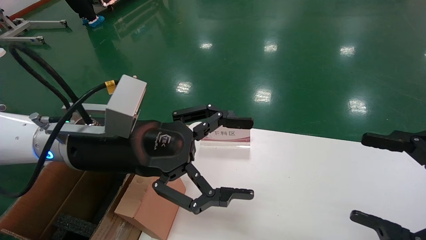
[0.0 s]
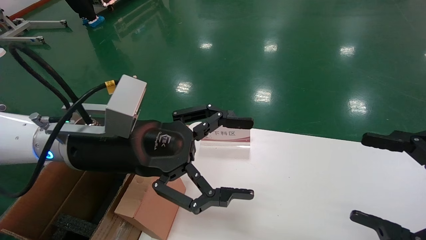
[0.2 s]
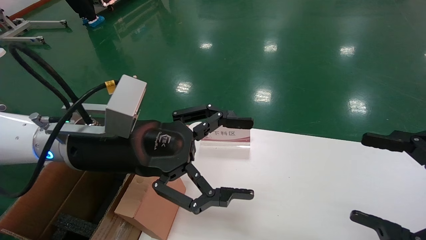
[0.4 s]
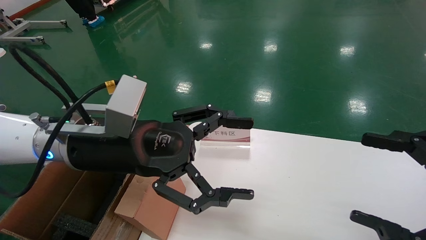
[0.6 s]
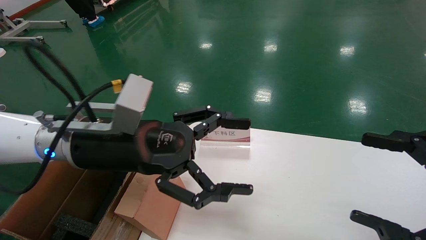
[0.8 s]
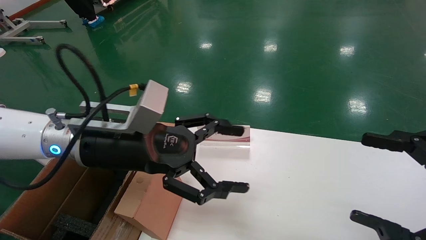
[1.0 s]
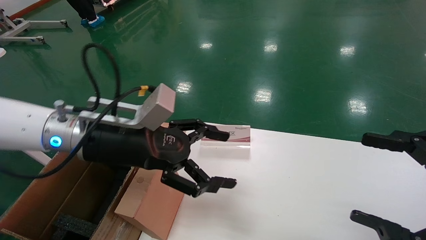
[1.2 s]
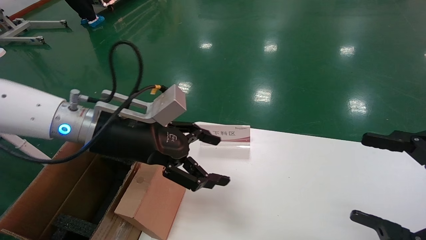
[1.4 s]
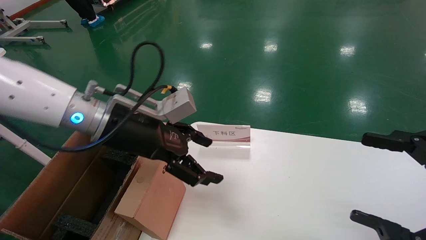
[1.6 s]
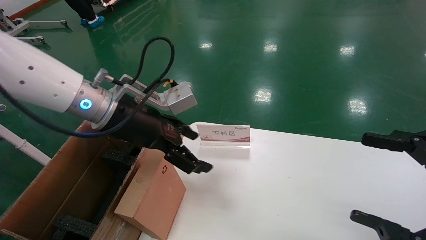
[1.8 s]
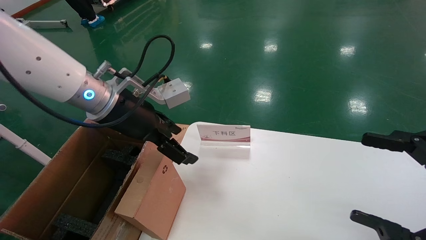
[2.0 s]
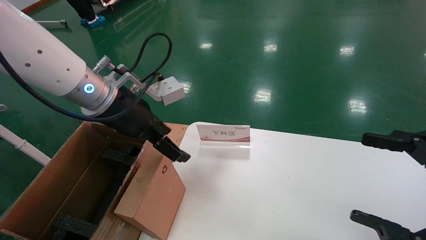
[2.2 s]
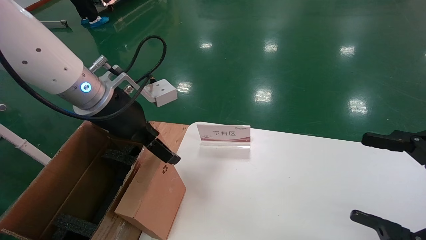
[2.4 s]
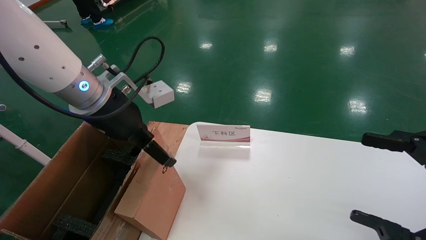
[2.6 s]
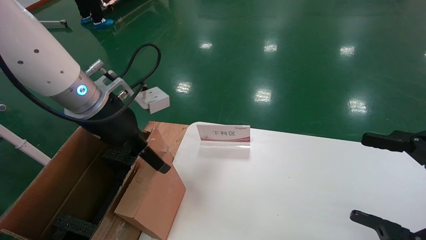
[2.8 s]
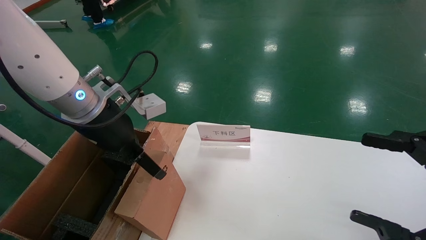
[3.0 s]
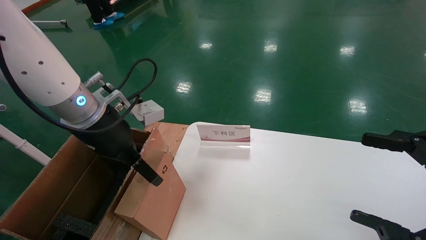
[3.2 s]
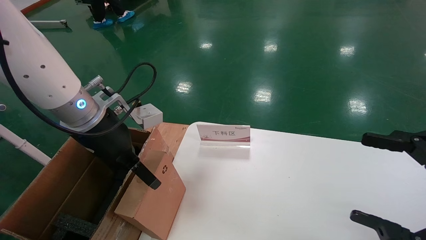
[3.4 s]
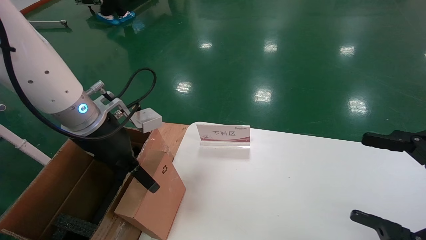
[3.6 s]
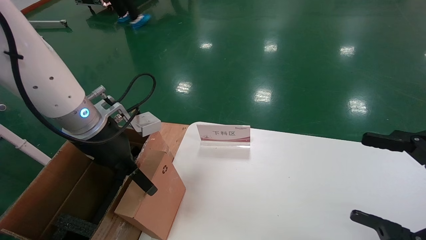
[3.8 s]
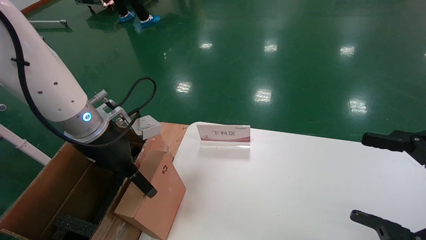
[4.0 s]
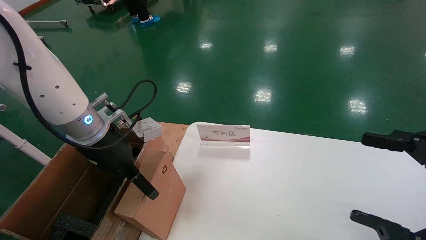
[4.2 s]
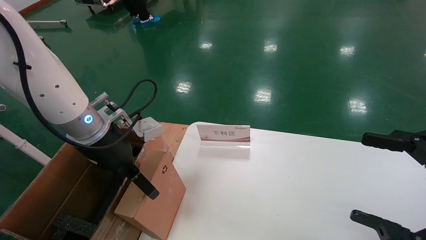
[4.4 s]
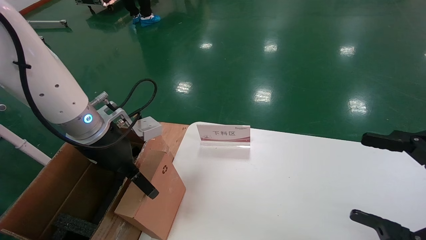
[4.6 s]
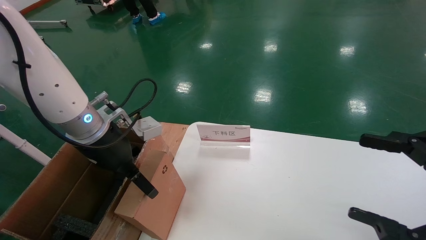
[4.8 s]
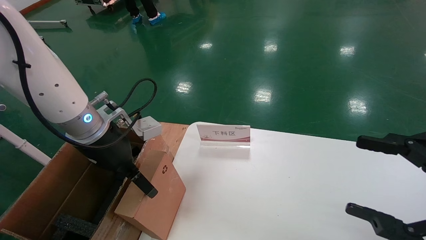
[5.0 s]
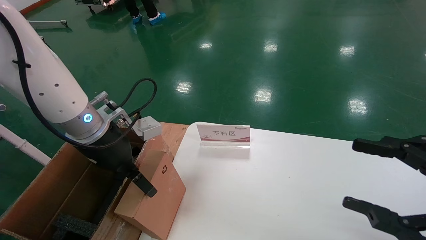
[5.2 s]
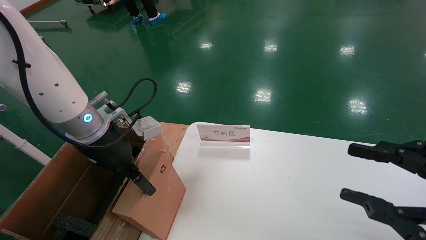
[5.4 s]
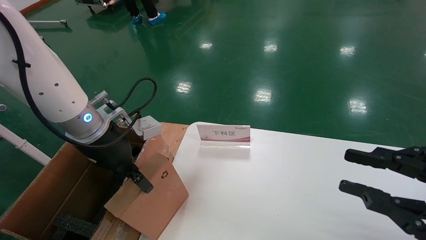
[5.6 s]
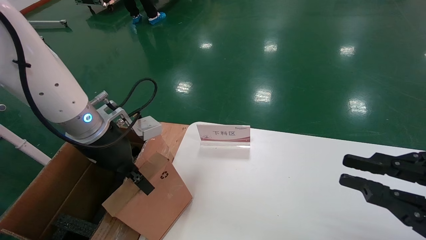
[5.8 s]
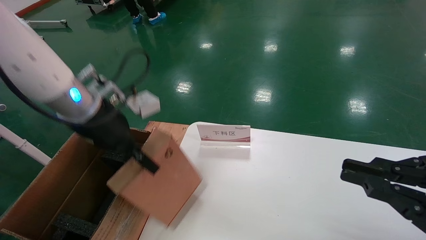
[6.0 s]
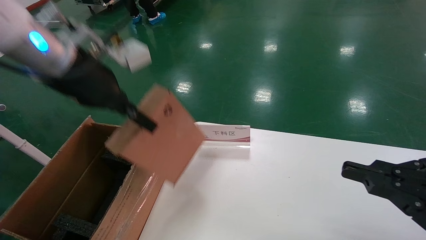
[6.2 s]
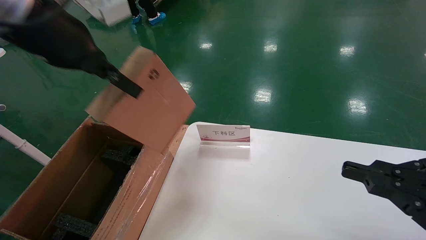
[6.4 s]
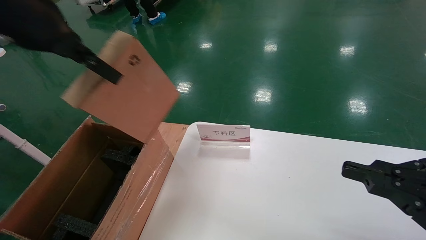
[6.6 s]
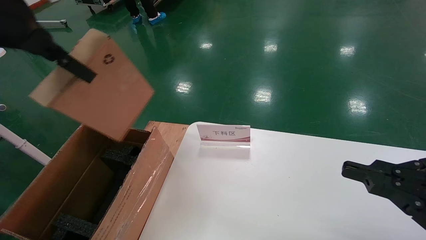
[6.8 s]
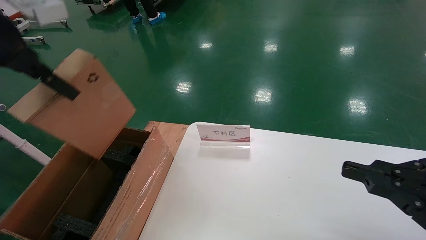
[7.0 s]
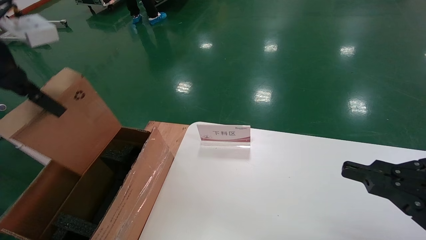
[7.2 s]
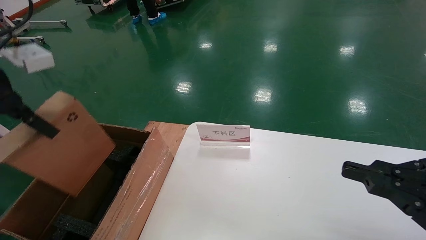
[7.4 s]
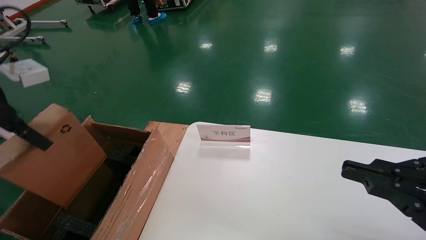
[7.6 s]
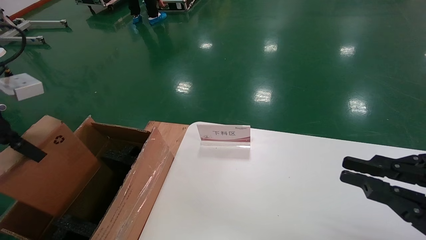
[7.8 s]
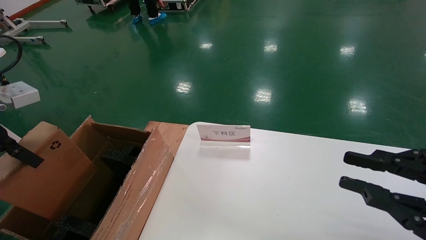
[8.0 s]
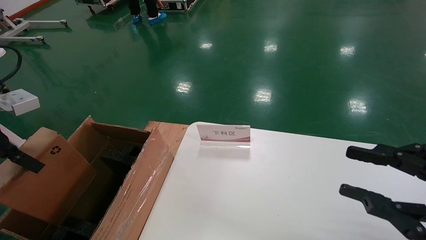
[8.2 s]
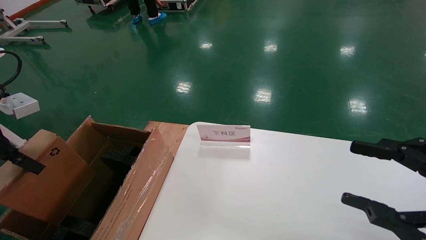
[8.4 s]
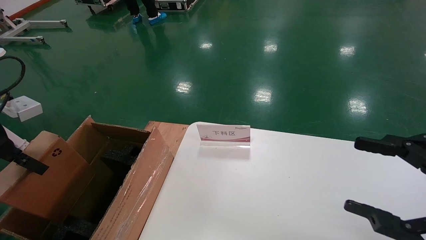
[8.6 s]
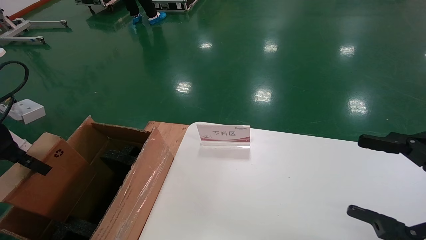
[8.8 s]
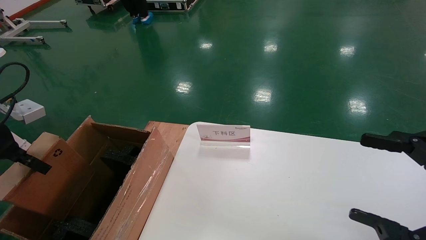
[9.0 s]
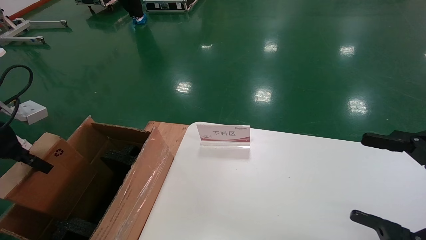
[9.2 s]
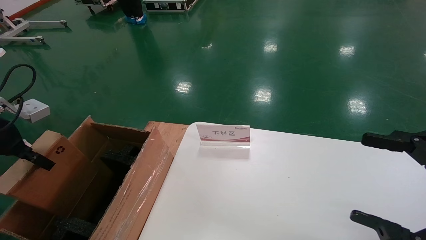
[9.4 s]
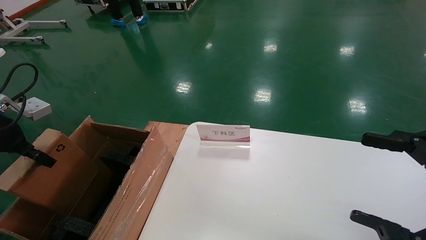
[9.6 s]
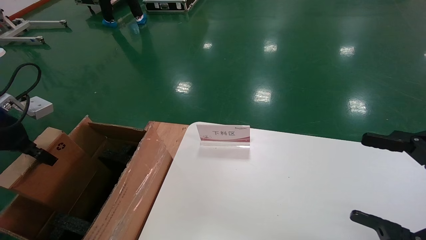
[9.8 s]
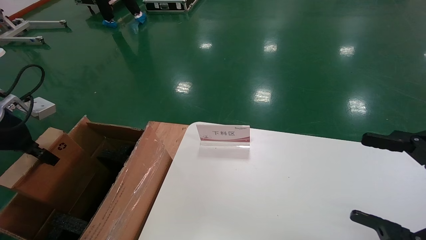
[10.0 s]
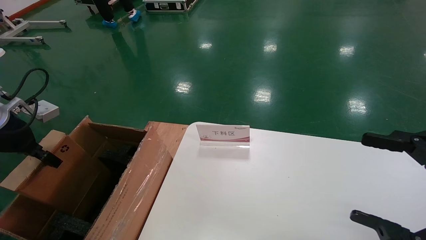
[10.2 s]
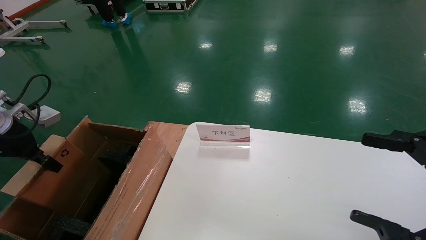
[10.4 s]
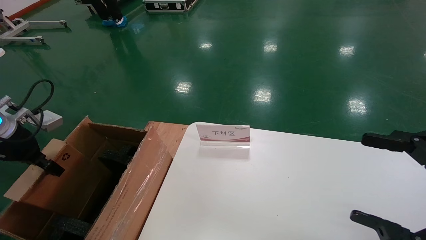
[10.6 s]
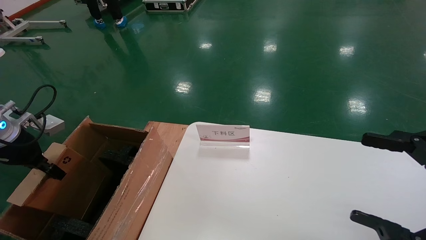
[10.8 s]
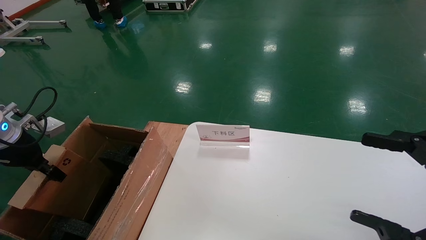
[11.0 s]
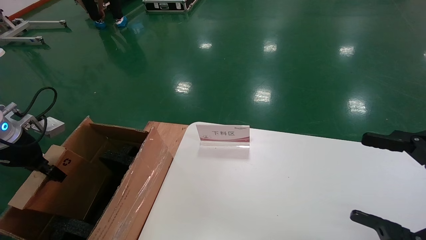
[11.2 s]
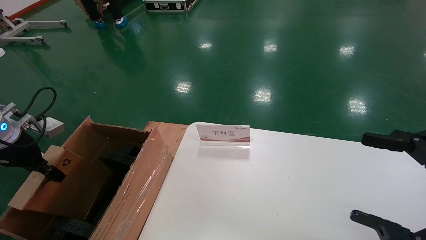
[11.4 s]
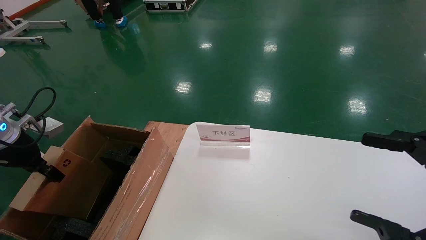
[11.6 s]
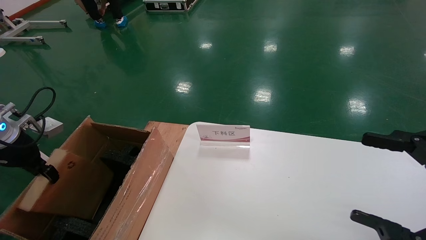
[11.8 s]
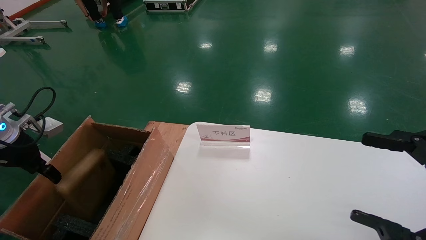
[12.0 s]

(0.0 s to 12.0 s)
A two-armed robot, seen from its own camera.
Task of the whole recording: pick up the small cardboard box and load it into the large cardboard box.
Step, 0.8 s - 5.6 s: Pick up the mouse and power cord box.
Step, 5.8 s - 11.8 s: Place the mouse and power cord box into the case.
0.0 s - 1.6 s: The left gripper heads forward, covering approximately 5 cm.
3.0 s - 4.4 s: The grippers make only small movements.
4.4 s - 6.0 s: The right gripper closes, while the left gripper is displaced upward by roughly 5 cm, and closes its fingers.
6.0 s - 7.6 s: The left gripper goes roughly 15 cm to the left and backward.
7.6 s - 9.0 s: The right gripper opens, while the left gripper goes some 10 cm downward and to the left.
9.0 s - 10.4 s: The left gripper moves roughly 5 cm.
10.4 s - 12.0 s: The left gripper opens.

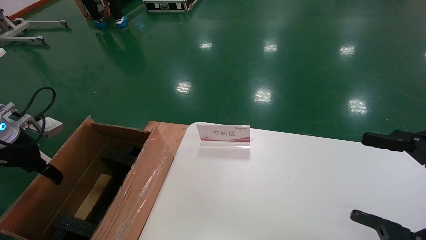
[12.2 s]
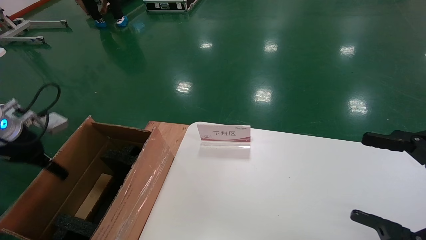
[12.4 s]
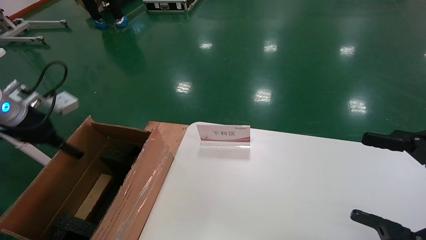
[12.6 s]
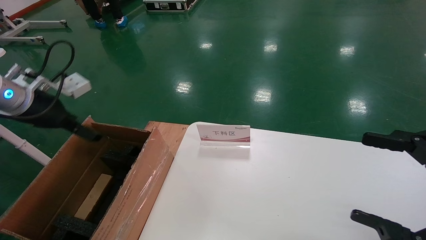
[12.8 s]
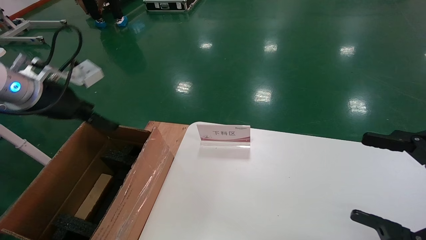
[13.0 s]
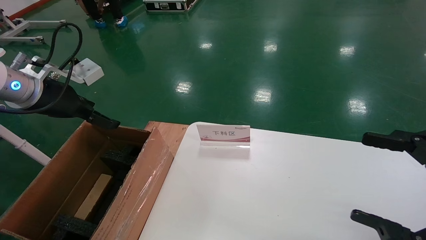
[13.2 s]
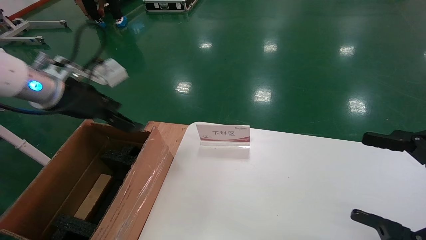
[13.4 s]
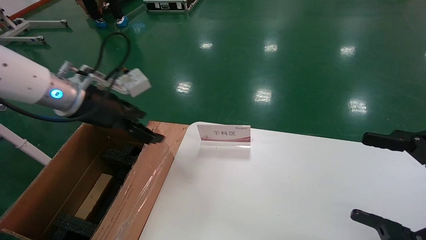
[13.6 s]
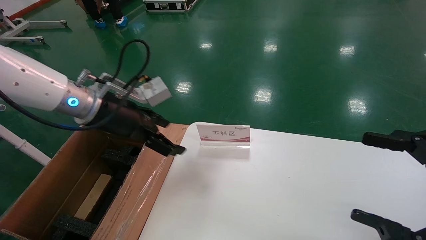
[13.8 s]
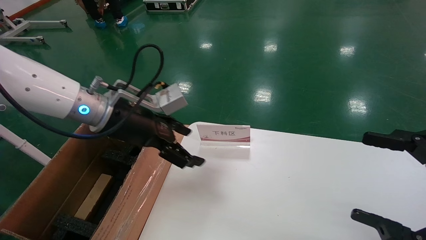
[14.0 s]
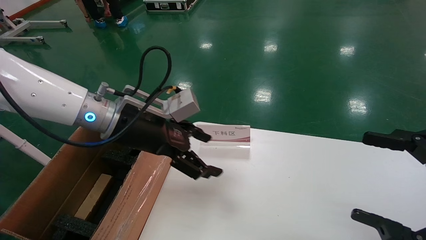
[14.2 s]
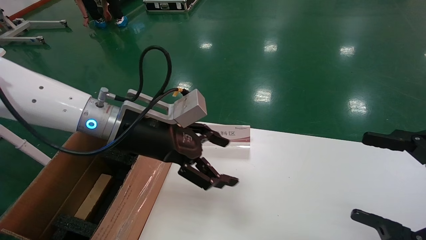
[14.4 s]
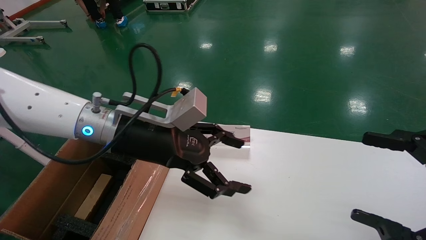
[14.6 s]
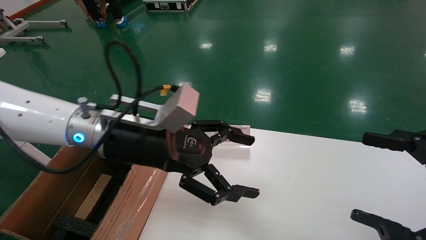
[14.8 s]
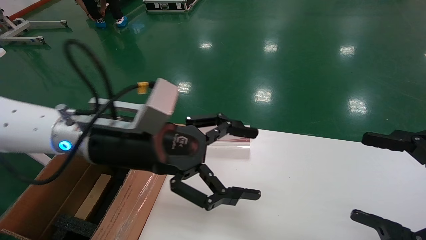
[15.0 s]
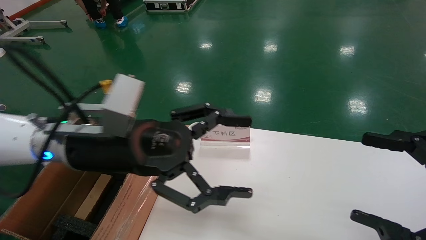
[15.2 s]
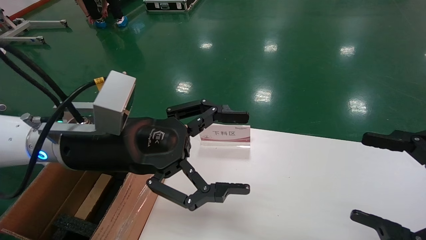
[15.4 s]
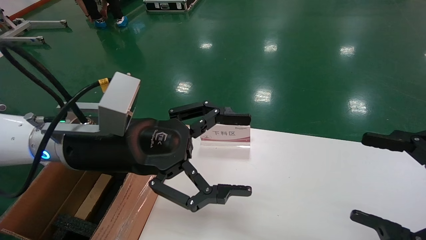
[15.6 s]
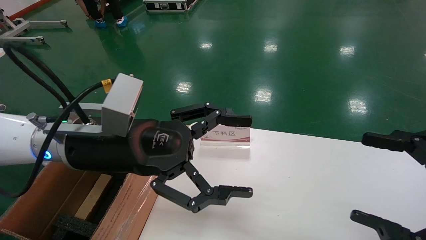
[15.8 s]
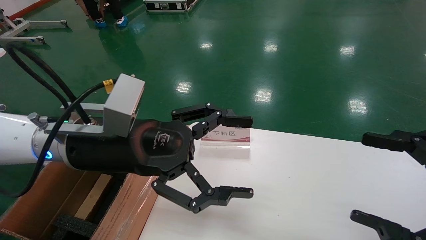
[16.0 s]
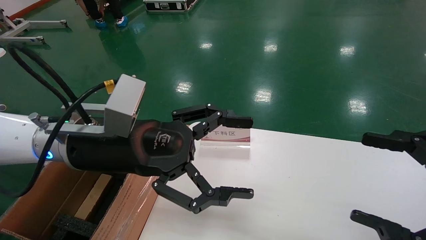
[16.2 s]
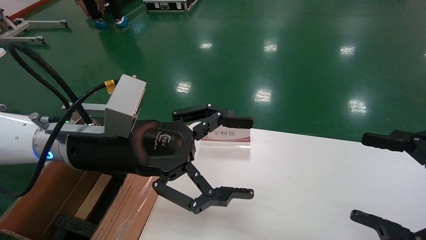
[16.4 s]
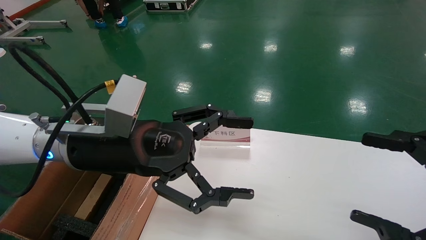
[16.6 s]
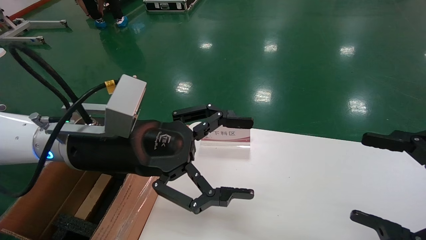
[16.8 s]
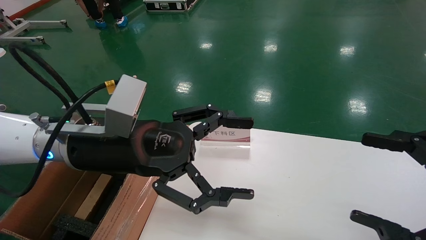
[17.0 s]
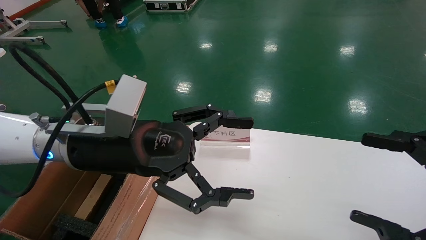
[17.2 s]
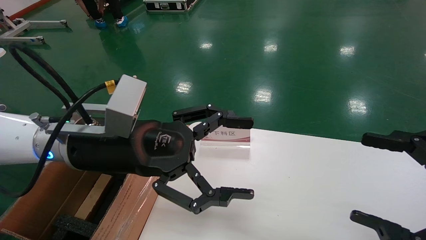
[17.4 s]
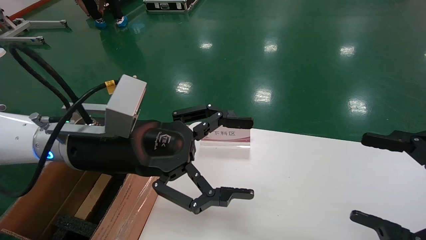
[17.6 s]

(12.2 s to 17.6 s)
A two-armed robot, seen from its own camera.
Task of the whole recording: pick up the small cardboard box and load it into the large cardboard box.
12.2 s - 13.6 s: The left gripper is displaced to the right by roughly 20 cm, and opens its fingers.
13.6 s - 15.0 s: The left gripper shifts roughly 15 cm to the right and backward.
15.0 s - 16.2 s: The grippers move only a little.
16.2 s - 17.6 s: Both grippers stay put.
